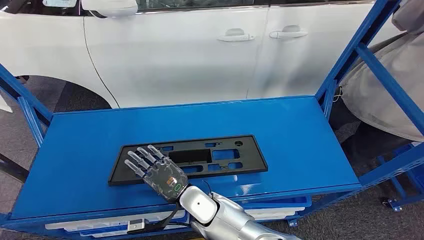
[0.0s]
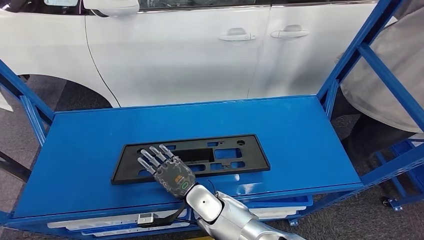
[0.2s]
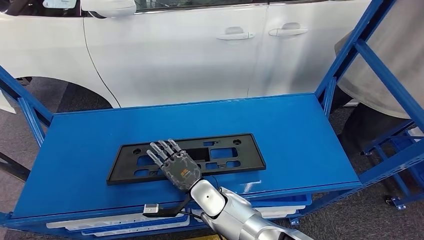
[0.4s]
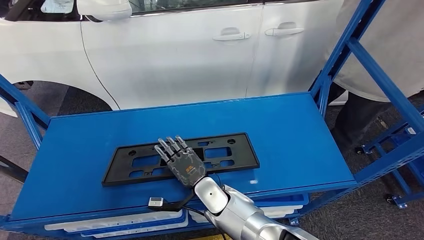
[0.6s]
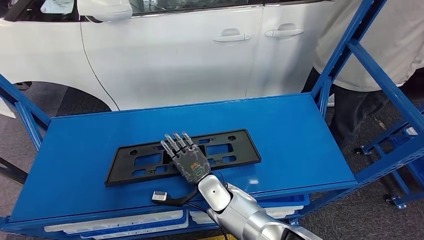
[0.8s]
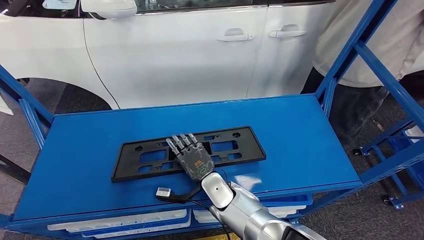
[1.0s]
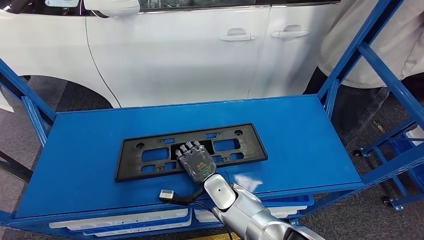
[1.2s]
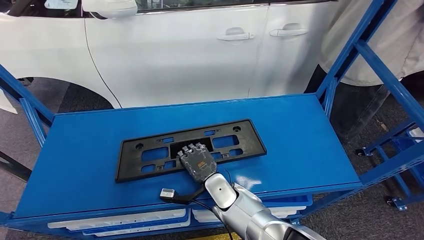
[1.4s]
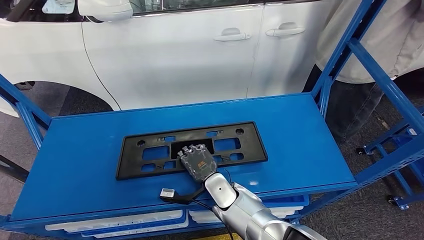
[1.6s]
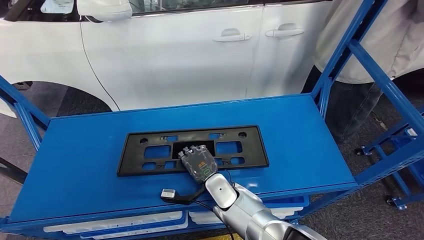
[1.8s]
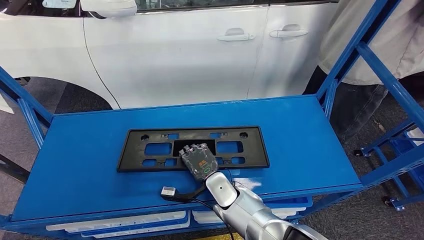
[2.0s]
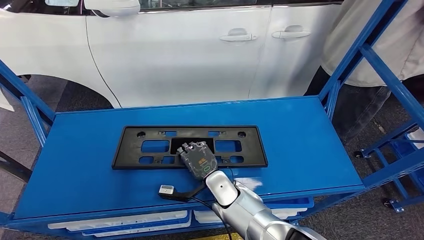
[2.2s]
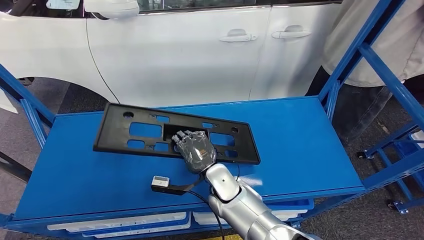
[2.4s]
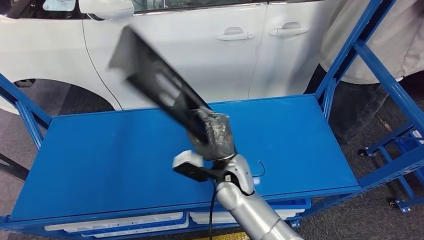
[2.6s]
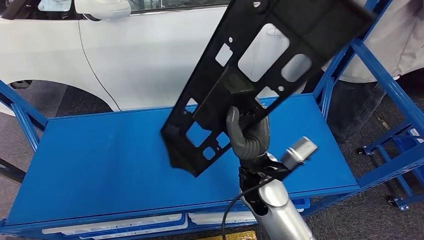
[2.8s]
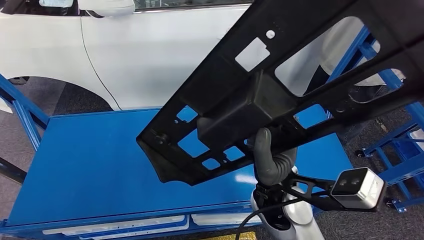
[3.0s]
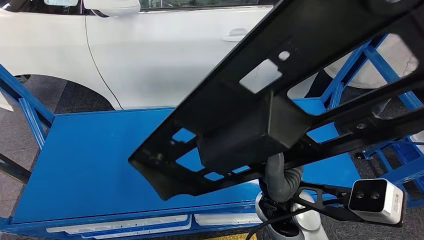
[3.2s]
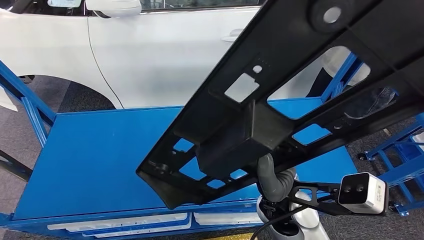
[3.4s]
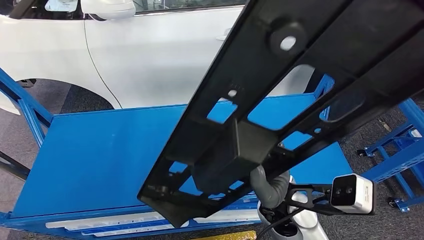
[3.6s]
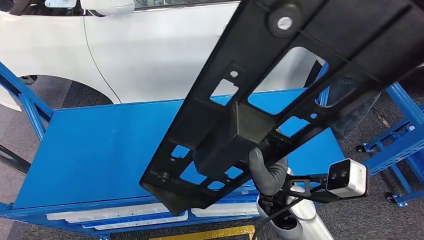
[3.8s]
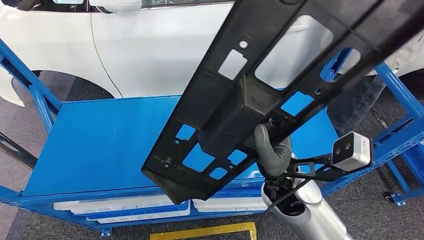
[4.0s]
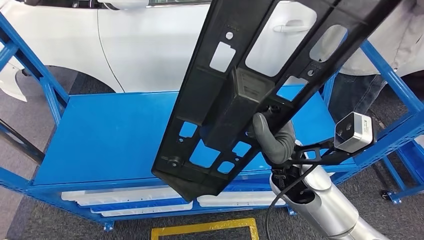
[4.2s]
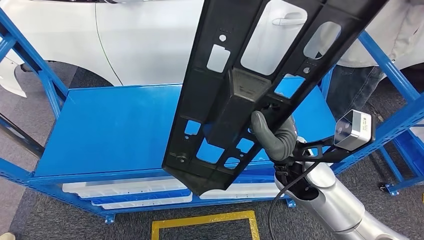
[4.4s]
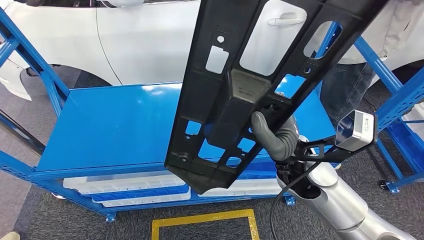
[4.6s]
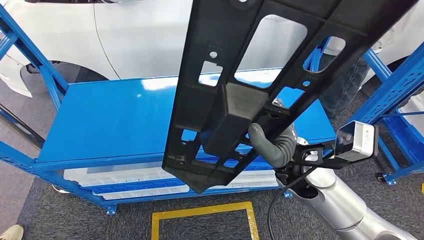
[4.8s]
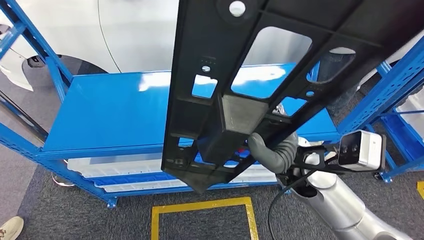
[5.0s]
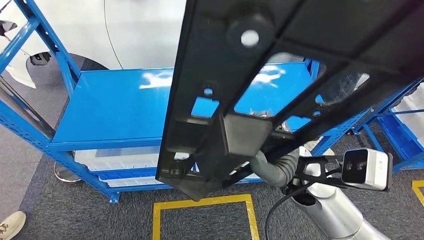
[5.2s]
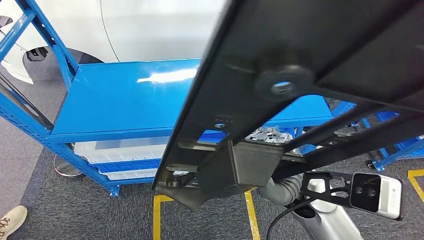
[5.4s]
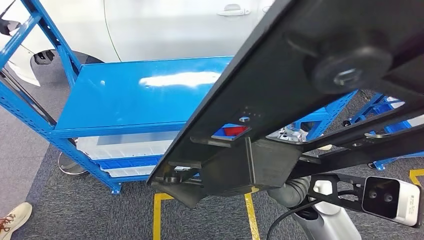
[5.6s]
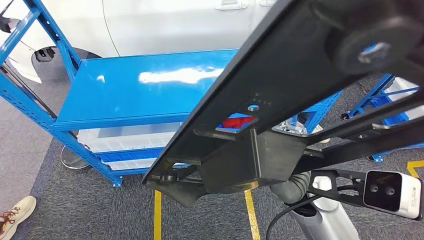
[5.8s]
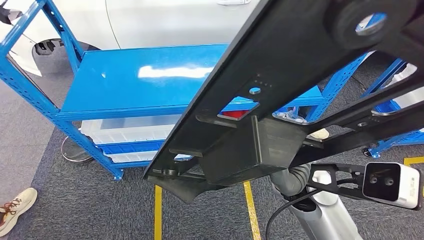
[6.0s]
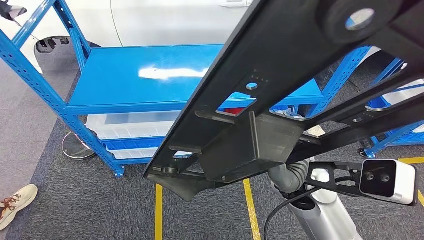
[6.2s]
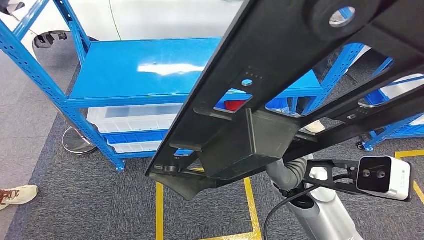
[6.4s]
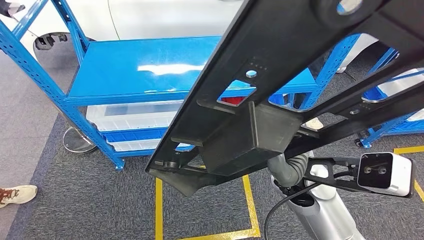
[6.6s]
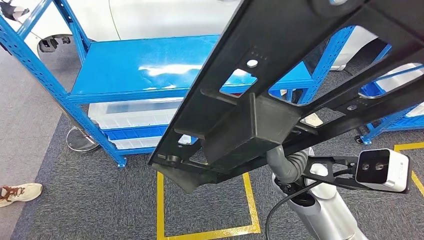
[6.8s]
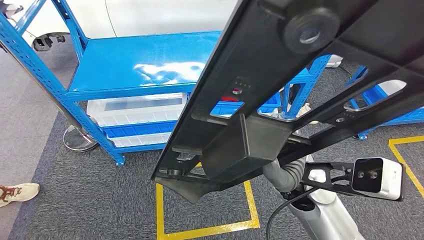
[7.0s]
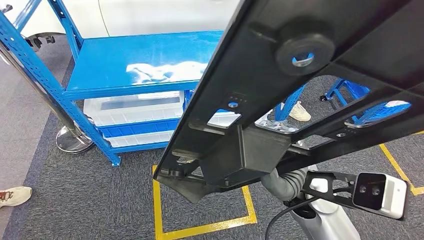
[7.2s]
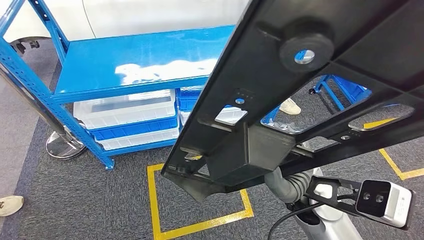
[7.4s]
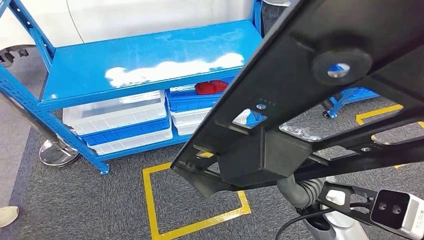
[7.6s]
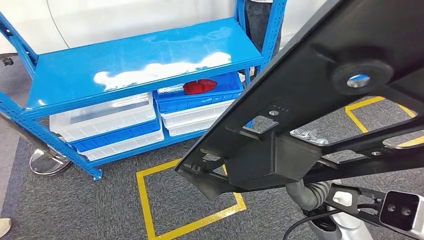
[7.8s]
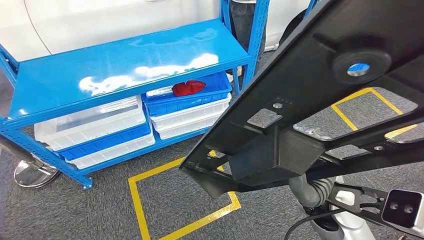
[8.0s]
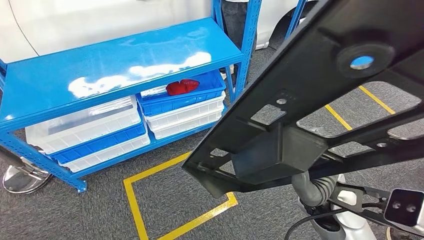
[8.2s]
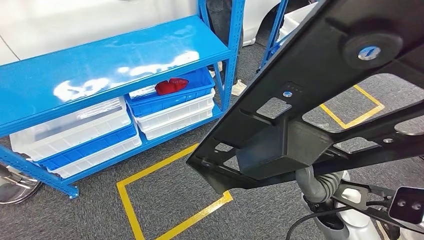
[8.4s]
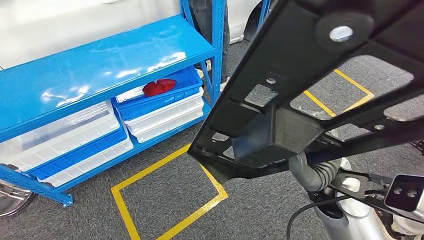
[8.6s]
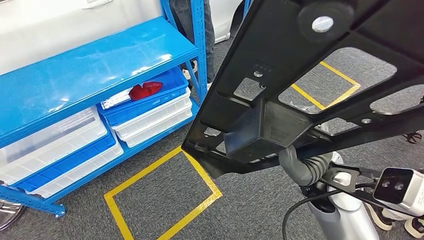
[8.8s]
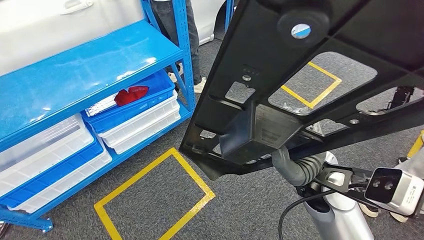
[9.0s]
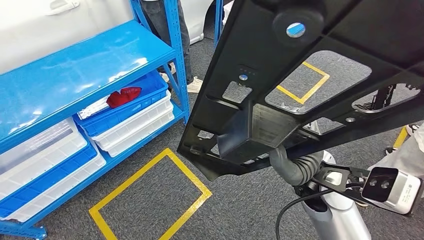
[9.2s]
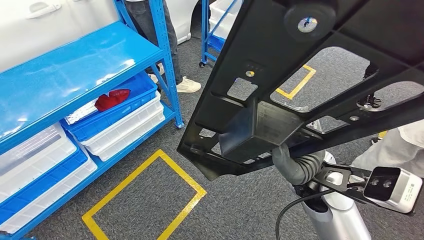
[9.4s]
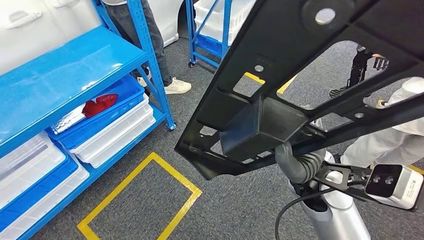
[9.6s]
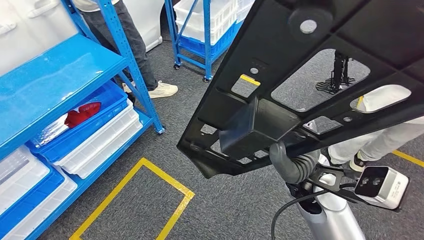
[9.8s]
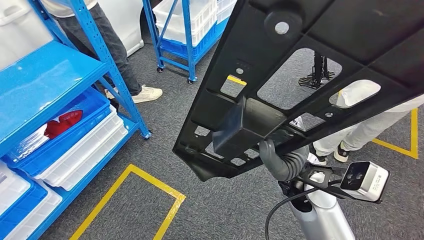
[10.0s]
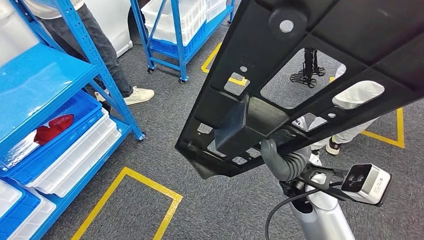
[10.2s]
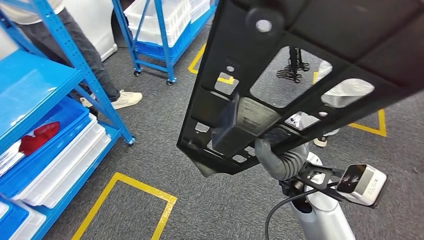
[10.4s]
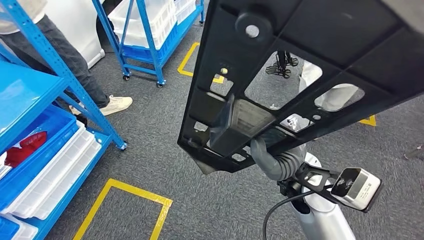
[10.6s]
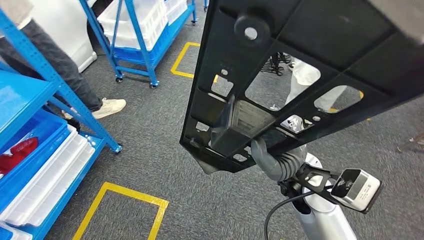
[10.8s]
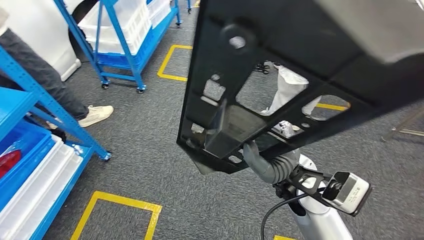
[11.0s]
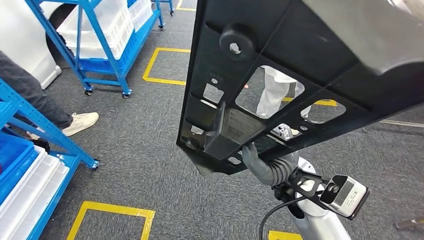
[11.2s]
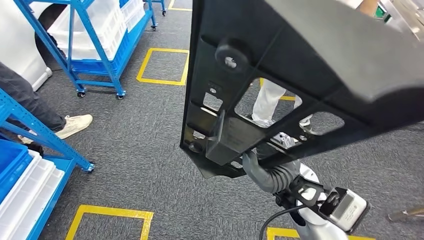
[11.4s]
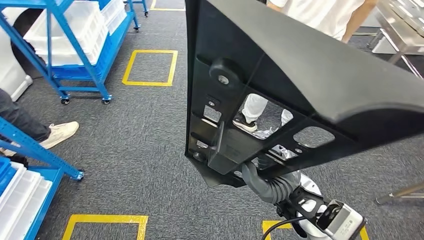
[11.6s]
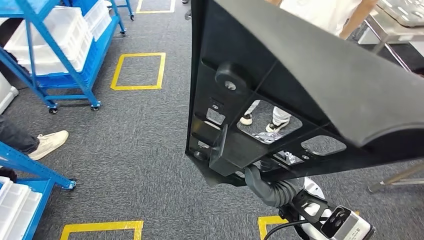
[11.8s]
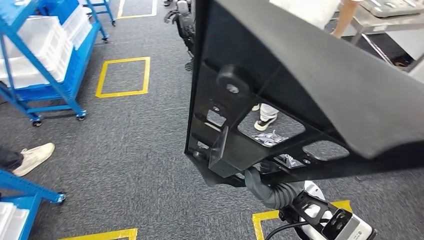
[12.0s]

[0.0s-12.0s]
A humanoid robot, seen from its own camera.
Step, 0.0s to 3.4s: Take small components from the rack.

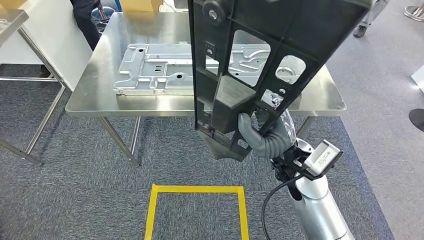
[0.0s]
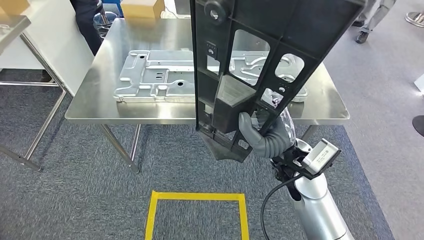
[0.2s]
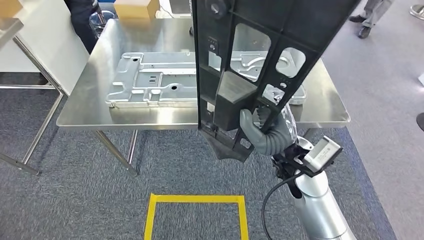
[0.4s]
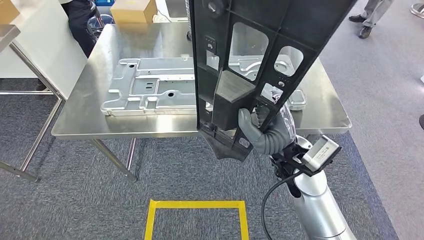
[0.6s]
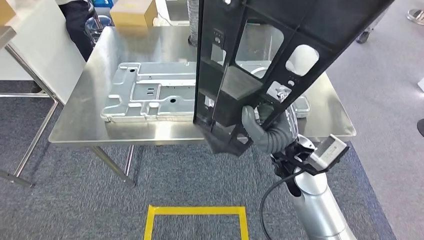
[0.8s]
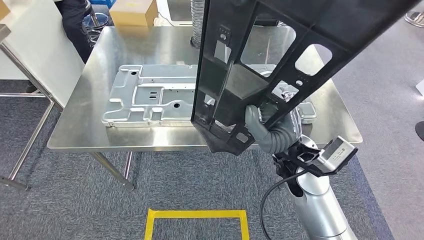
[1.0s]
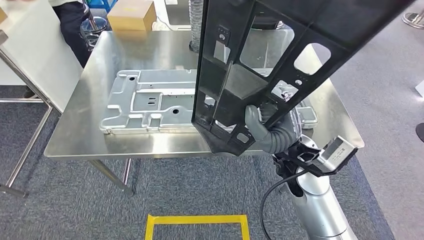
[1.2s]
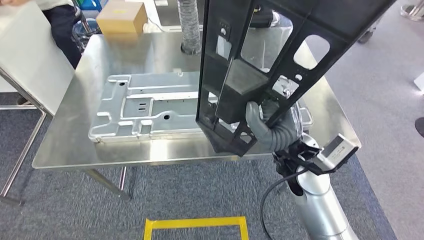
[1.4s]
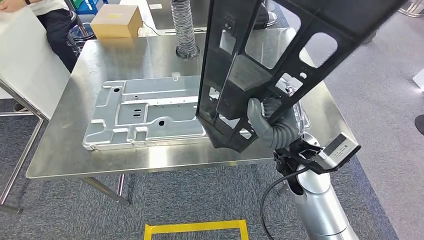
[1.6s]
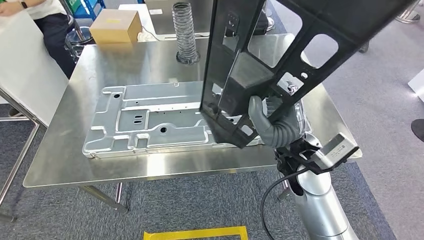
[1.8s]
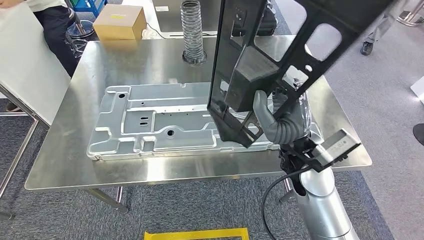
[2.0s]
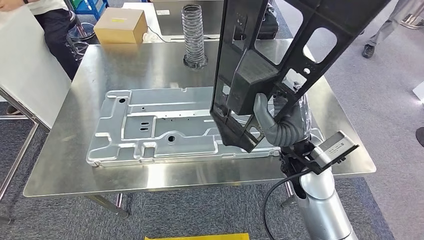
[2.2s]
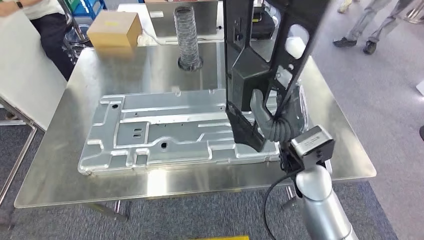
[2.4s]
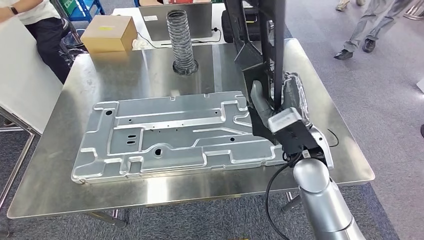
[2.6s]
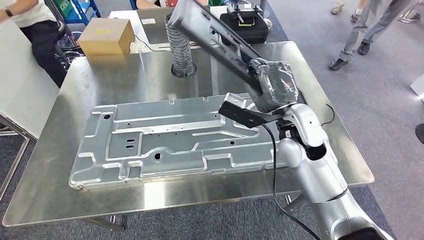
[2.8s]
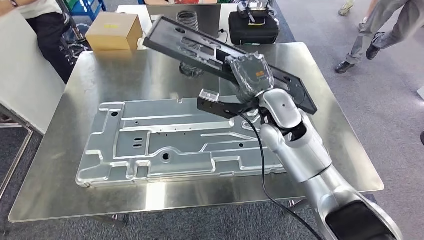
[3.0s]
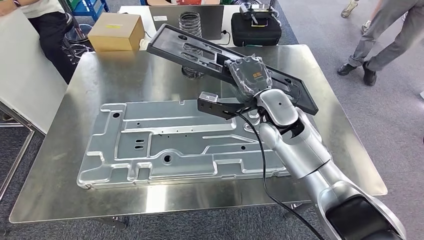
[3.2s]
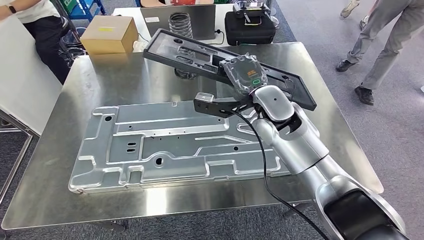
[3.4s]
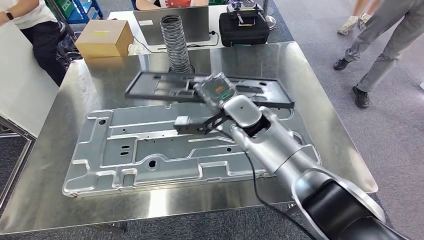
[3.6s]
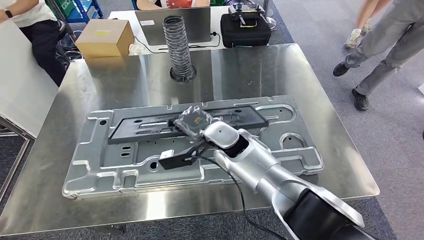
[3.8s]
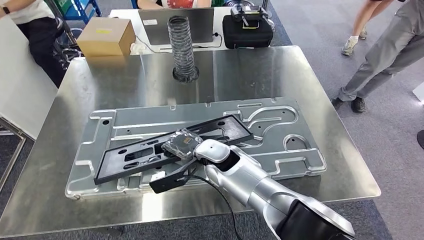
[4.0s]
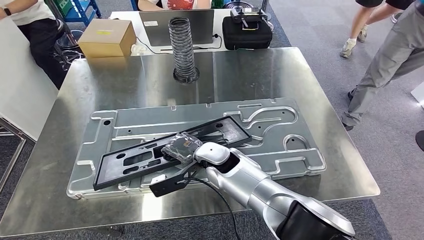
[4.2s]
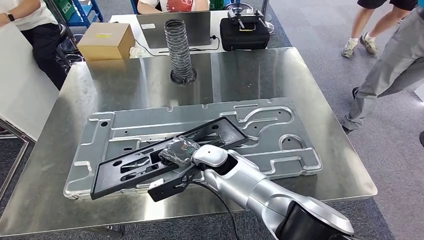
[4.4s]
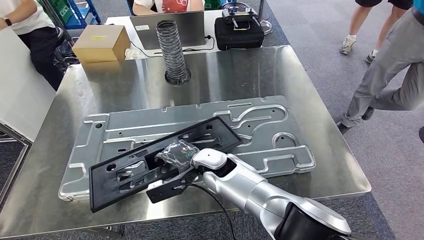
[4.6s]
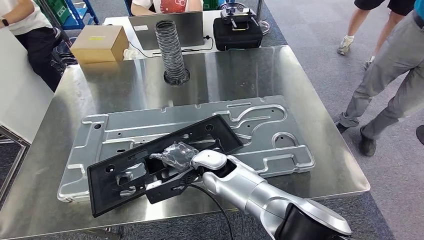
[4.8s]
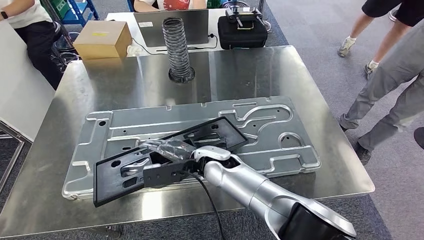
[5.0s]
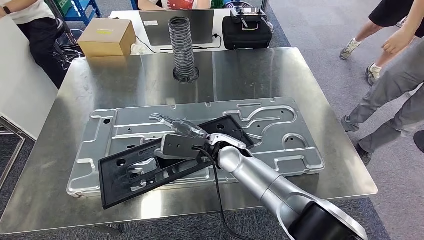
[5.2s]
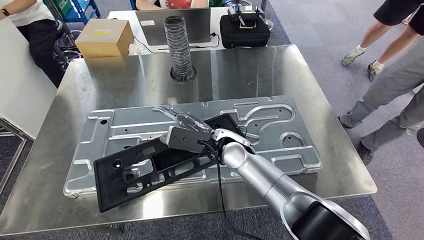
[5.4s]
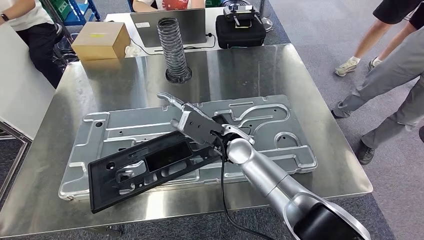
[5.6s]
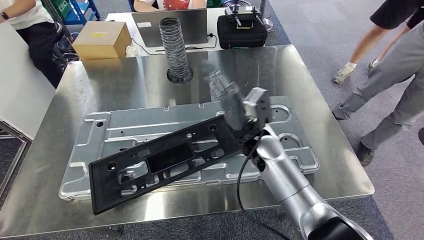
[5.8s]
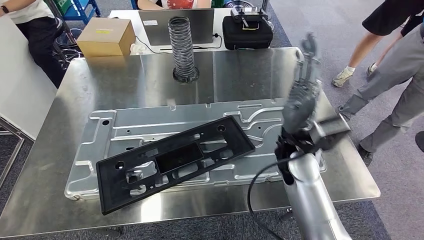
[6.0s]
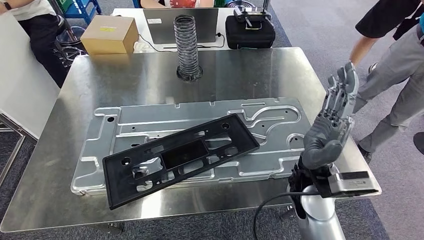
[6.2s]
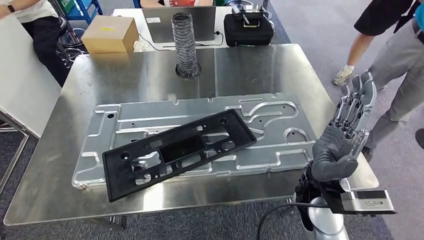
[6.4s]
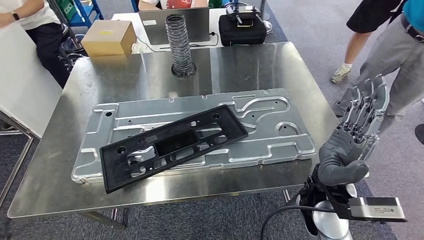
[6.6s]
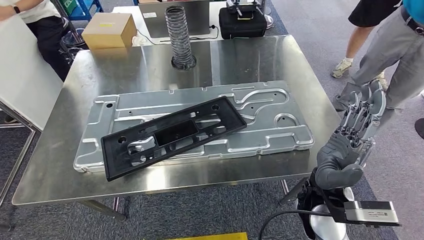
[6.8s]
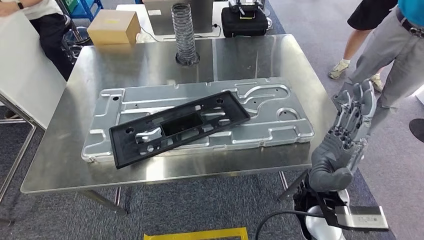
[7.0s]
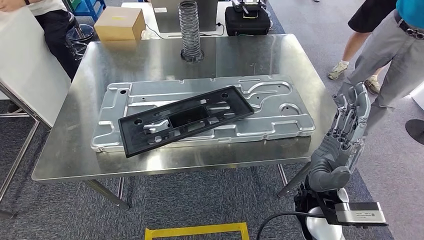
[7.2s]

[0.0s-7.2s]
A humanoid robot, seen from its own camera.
Step, 0.0s to 2.4s: Move the small parts to the workbench.
Step, 2.6s to 7.0s: Insert the small parts into the corresponding holes on the workbench.
